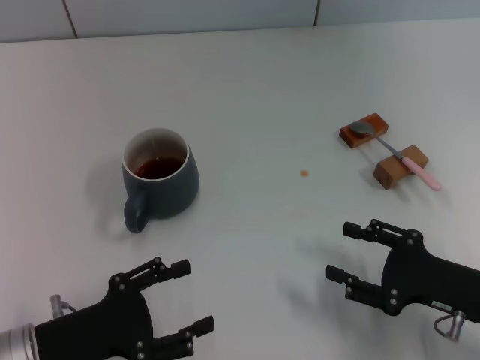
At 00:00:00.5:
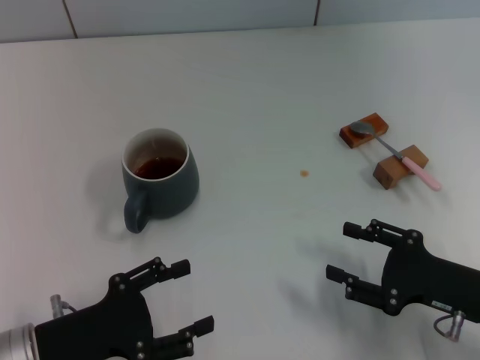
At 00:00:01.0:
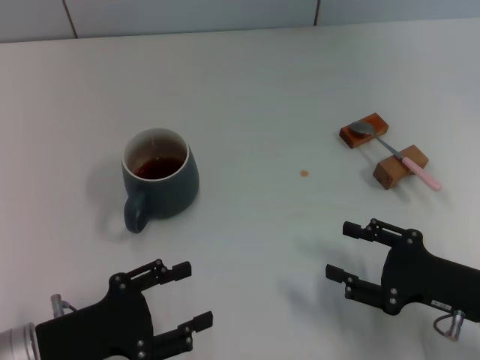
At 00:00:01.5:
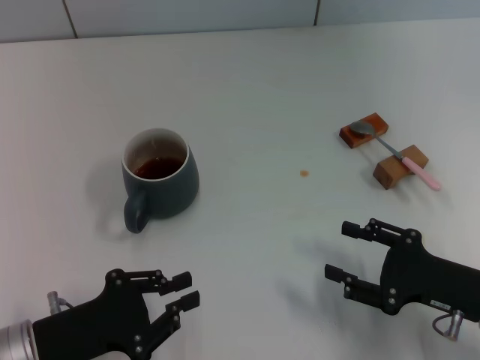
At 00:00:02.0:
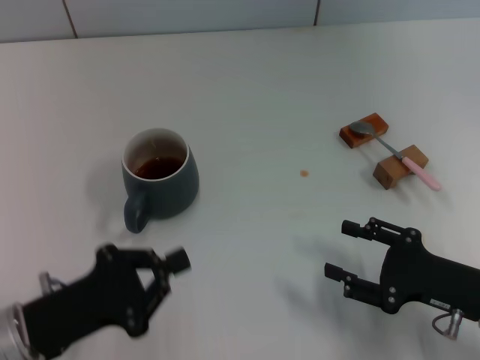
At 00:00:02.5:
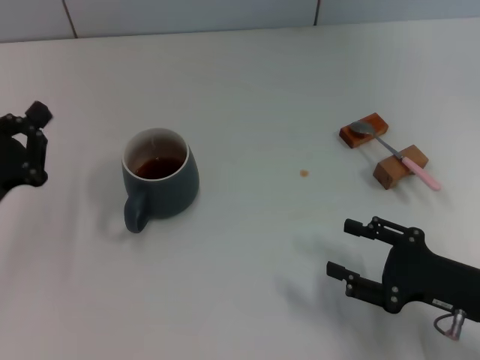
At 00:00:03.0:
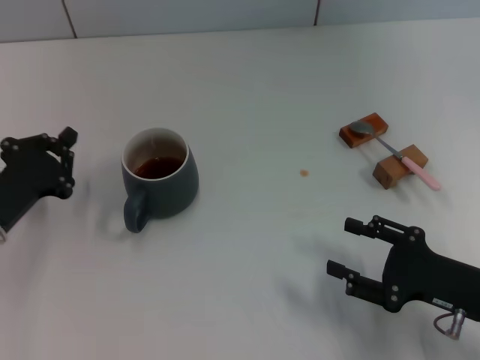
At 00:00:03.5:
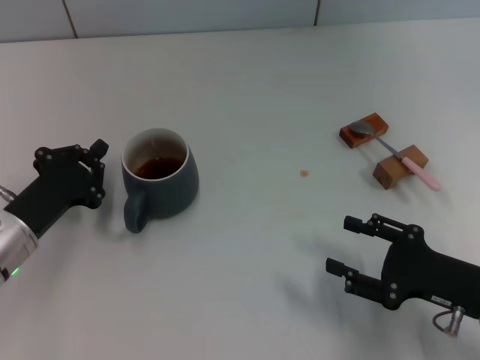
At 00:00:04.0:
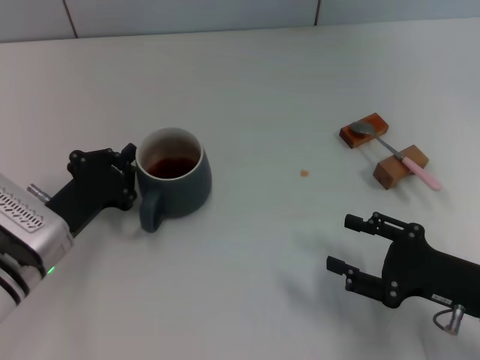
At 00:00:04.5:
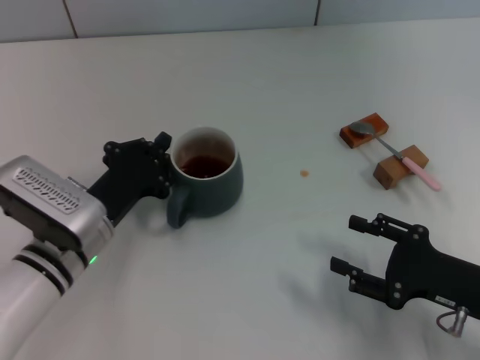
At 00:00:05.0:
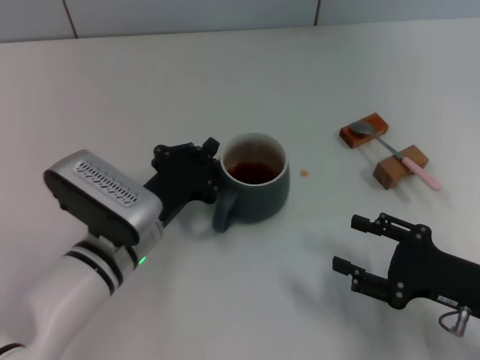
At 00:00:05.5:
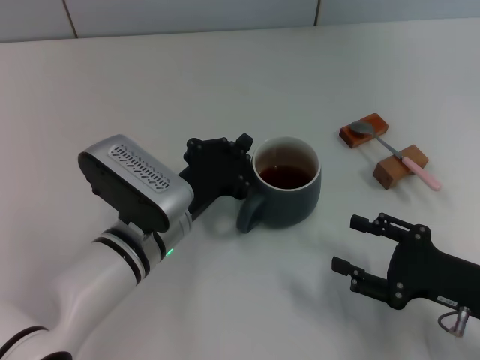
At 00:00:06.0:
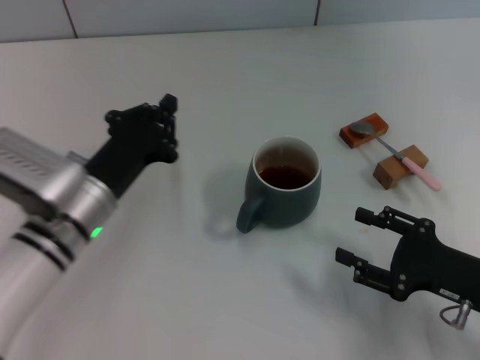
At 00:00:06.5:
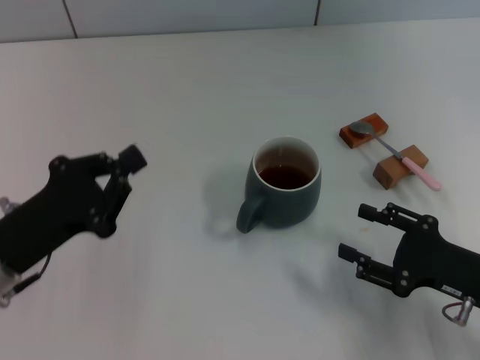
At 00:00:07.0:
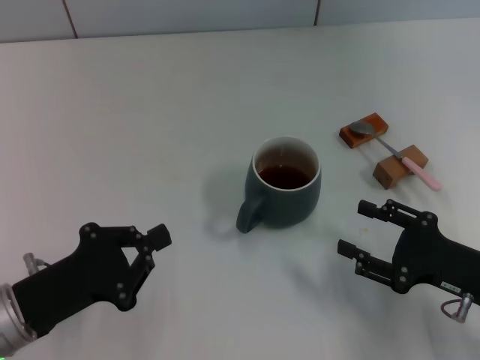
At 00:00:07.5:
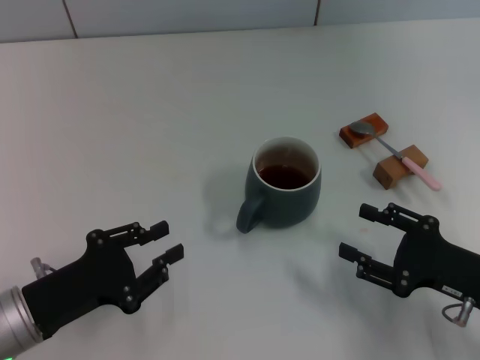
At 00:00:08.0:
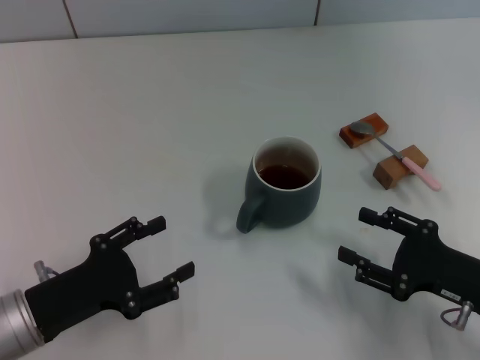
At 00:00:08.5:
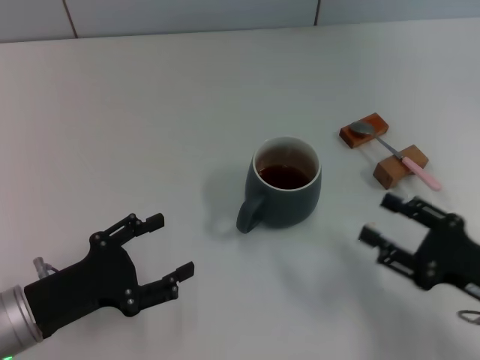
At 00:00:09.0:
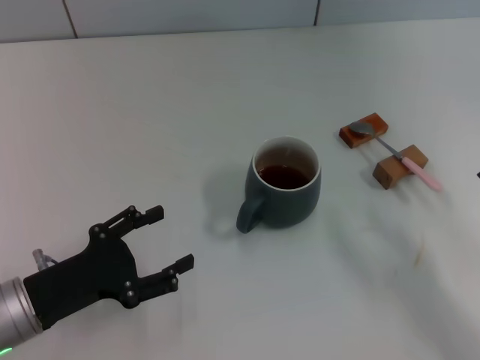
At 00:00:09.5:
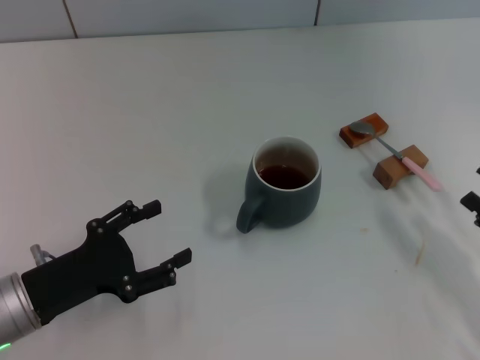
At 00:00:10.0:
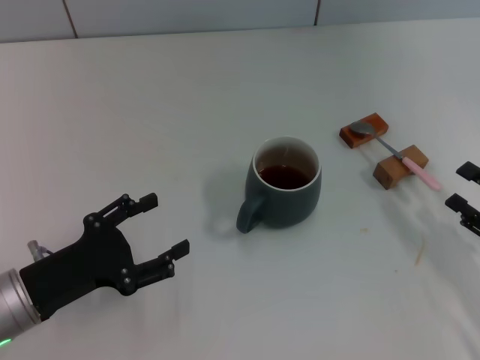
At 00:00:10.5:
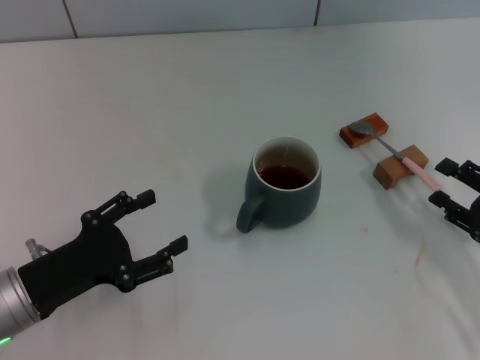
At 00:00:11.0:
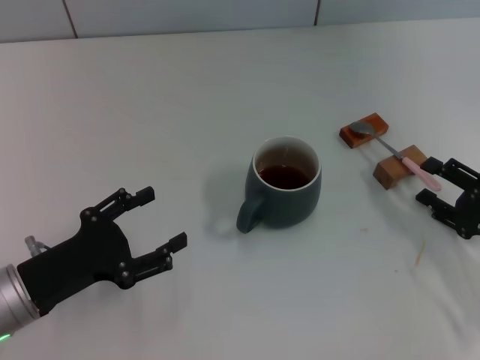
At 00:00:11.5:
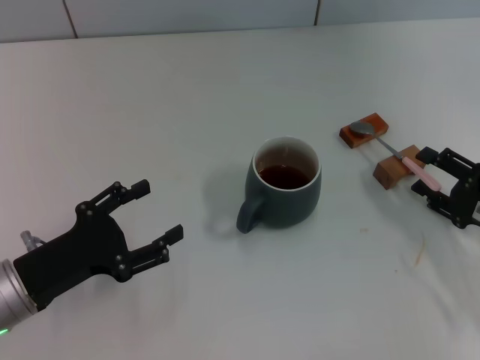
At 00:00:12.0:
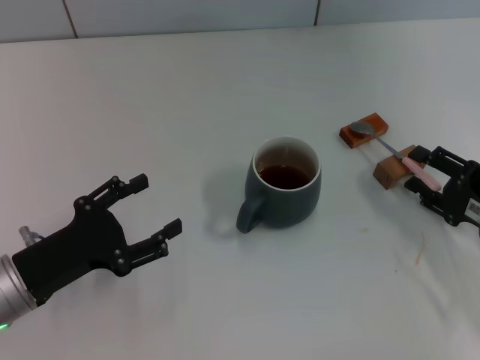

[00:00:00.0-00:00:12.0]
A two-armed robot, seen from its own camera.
Task of the whole recording: Move the grey cup to the center, lift the pink spoon, stir it three times in the cup, and put the spoon into the cup.
Step, 00:00:00.0 to 00:00:05.5: Move the cup with coffee to the center of view with the left gripper.
00:00:00.0 to 00:00:02.0: The left gripper closes up.
00:00:02.0 to 00:00:04.0: The left gripper goes some 10 cm forward.
00:00:06.0 to 00:00:08.0: The left gripper moves backward and to the left, roughly 10 cm, and opens up.
00:00:08.0 to 00:00:10.0: The right gripper shifts some 5 cm to the right.
00:00:10.0 to 00:00:12.0: The right gripper ends up some 5 cm from where it was.

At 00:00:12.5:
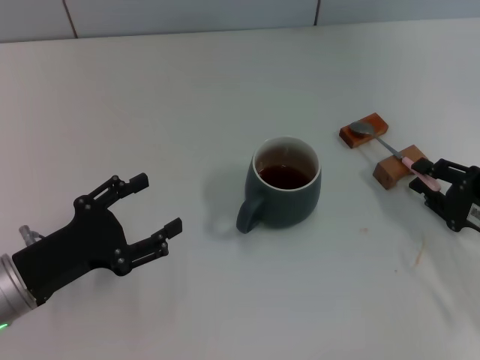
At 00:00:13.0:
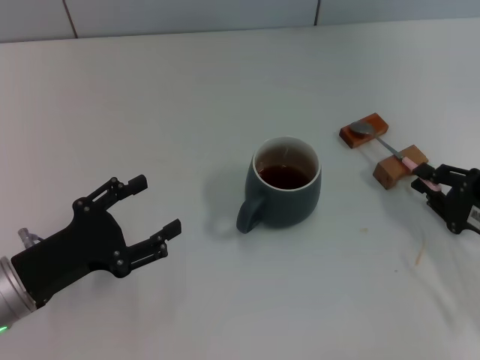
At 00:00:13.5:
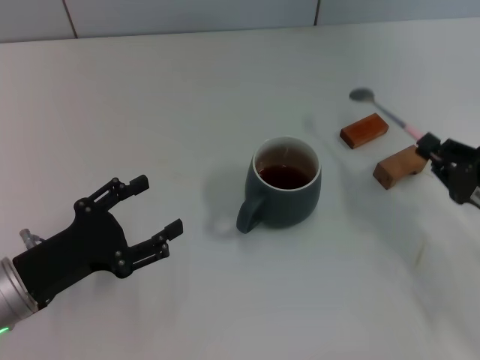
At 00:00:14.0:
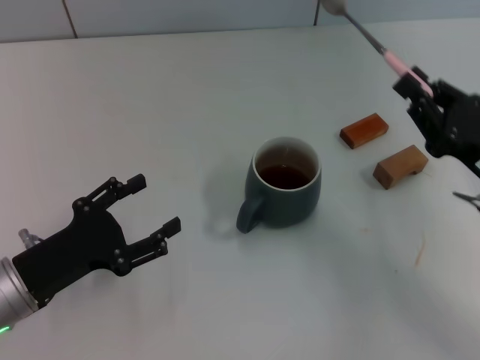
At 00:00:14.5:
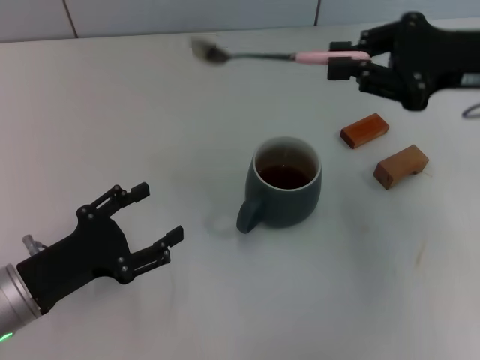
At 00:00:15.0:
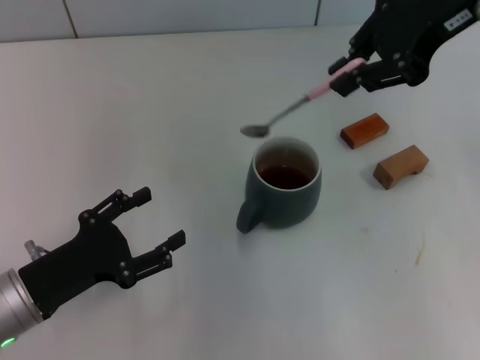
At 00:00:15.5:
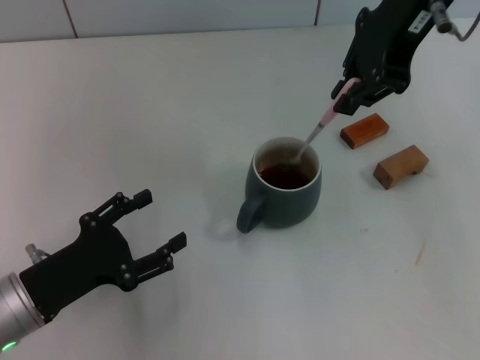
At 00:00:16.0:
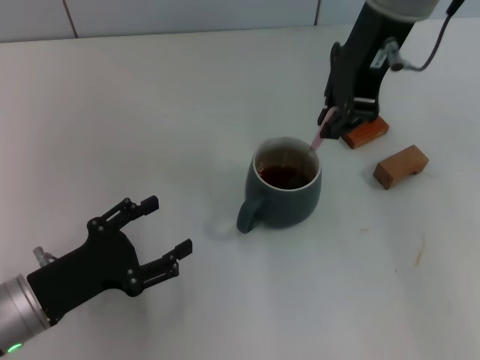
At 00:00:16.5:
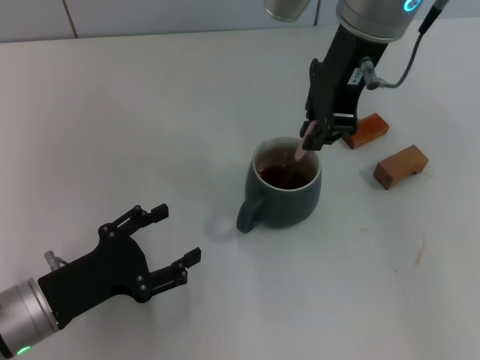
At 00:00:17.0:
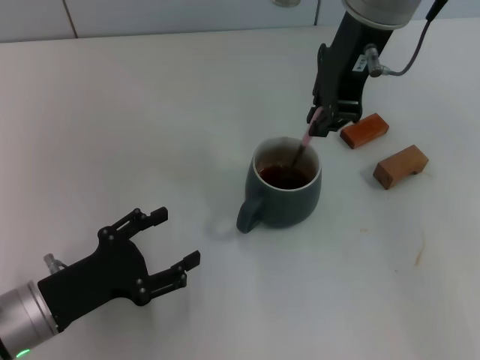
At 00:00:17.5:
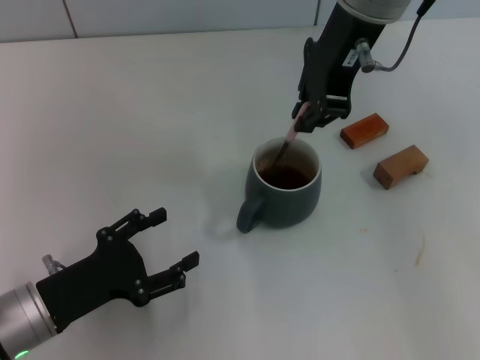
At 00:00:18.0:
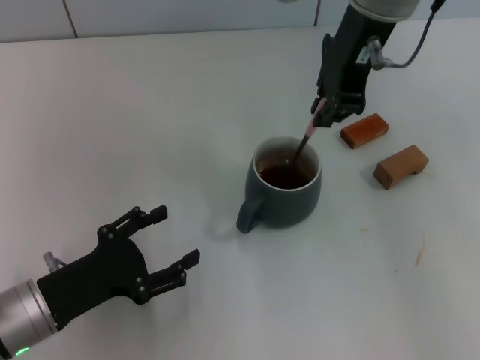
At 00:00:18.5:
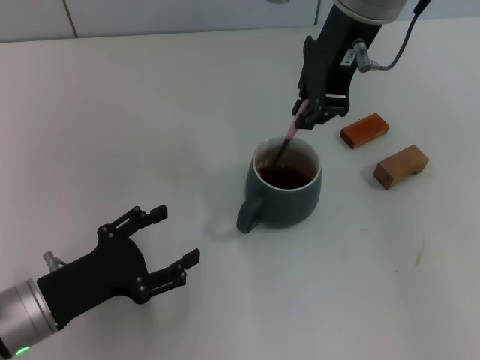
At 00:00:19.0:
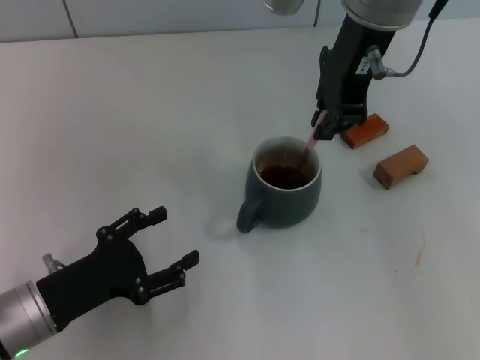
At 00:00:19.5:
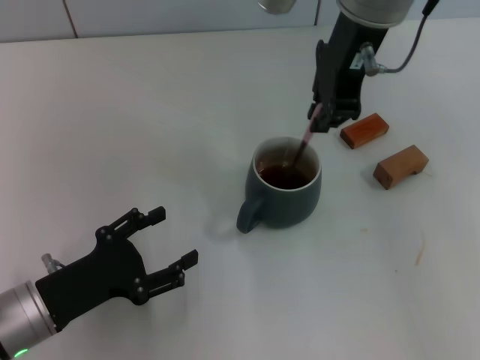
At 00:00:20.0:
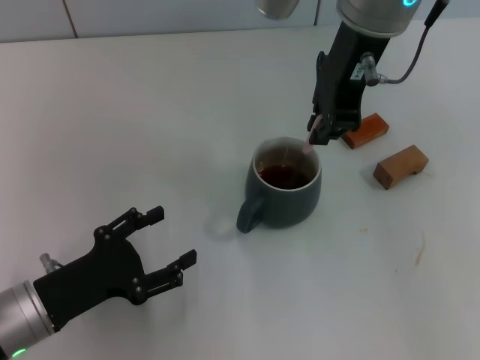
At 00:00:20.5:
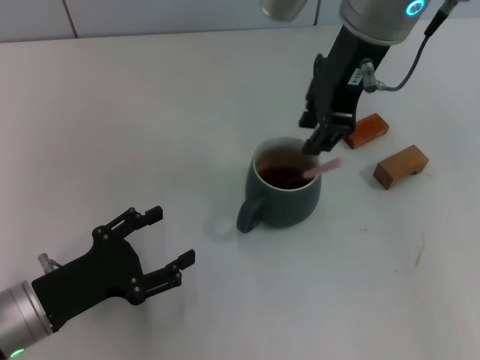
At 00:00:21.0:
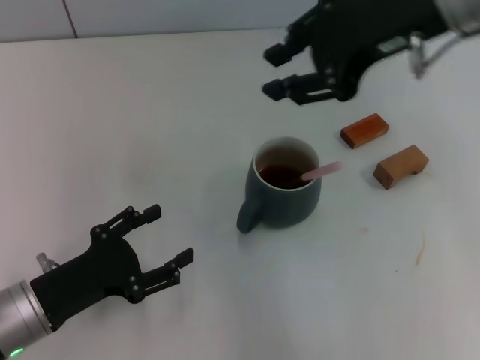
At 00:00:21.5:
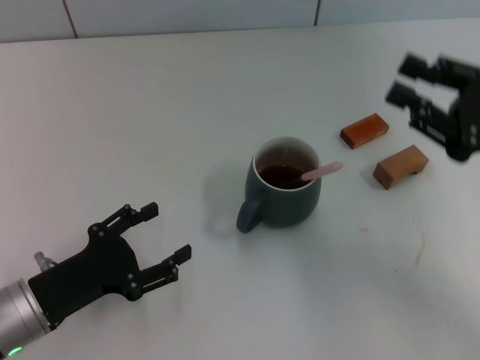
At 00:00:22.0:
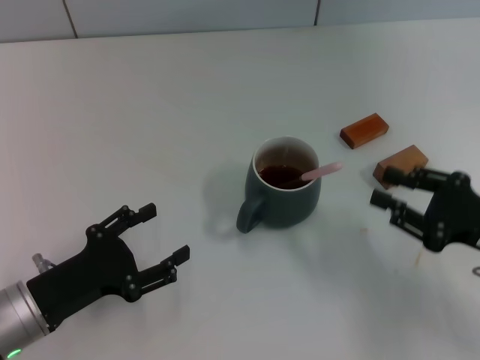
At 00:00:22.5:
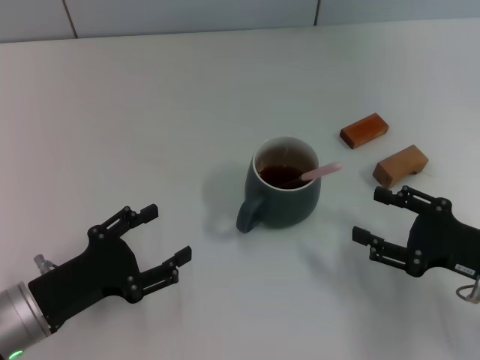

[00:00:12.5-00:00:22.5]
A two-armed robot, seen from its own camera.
Task of the whole recording: Move the grey cup to the center, lift the pink spoon, stir it three times in the cup, and put the spoon into the cup.
Step, 00:00:14.0 to 00:00:21.0: Stir the coffee in the cup with the right gripper.
00:00:12.5 to 00:00:14.5: The right gripper travels upward and forward by approximately 20 cm, and closes up.
00:00:14.5 to 00:00:16.5: The right gripper is displaced to the left by some 15 cm.
00:00:16.5 to 00:00:20.5: The grippers move only a little.
00:00:20.5 to 00:00:22.5: The right gripper goes some 35 cm downward, to the right and backward, and opens its fingers.
